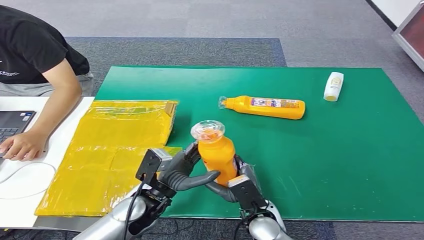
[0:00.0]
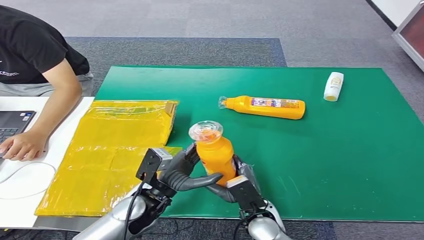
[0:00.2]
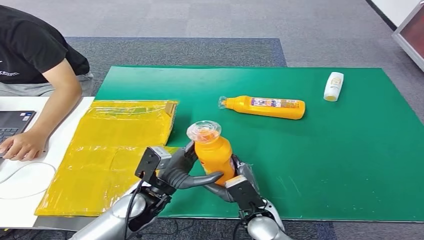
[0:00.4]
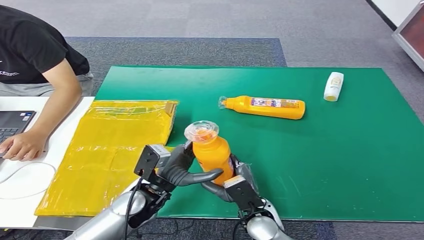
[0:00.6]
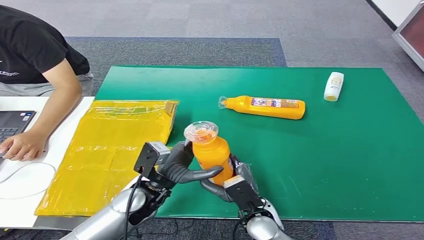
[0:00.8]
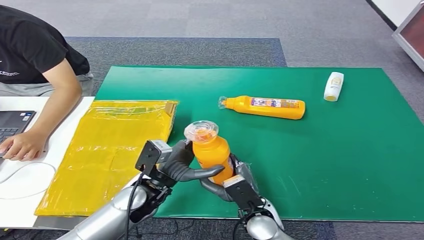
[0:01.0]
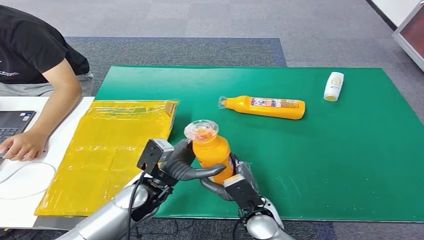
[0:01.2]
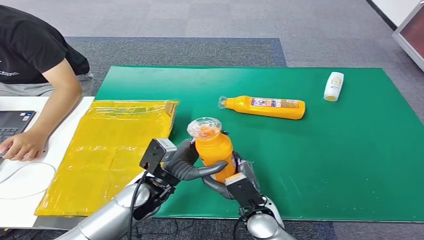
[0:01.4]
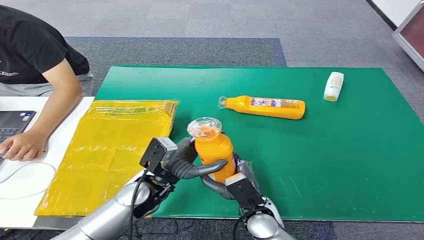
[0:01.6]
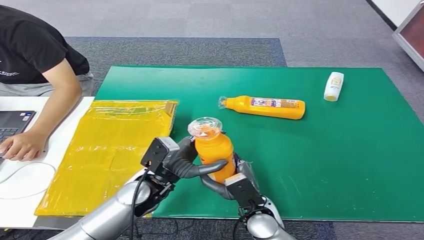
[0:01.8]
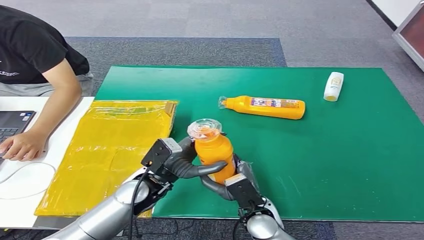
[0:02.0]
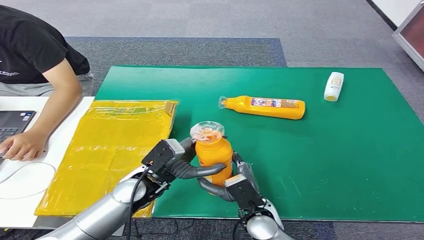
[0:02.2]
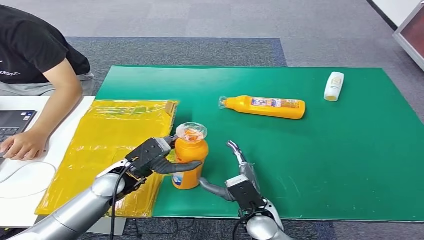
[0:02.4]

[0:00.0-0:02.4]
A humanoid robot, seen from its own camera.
Step, 0:00.0 to 0:02.4: Turn the bottle to the front side.
0:00.0 to 0:01.2: There are only small adjustments of the hands.
0:01.2 to 0:02.4: The left hand moves to the left, approximately 5 cm.
